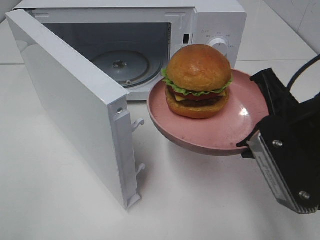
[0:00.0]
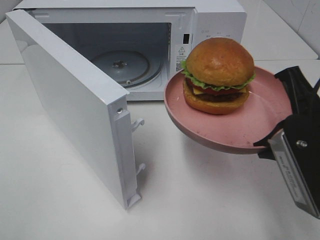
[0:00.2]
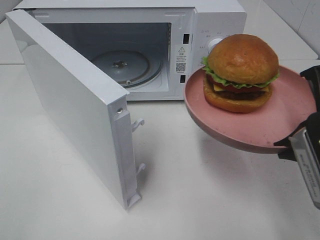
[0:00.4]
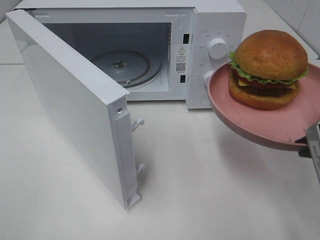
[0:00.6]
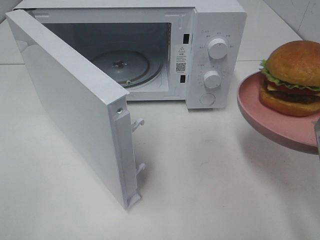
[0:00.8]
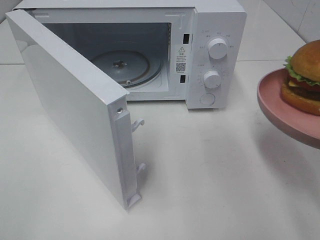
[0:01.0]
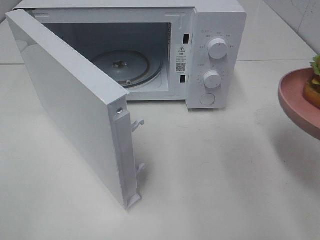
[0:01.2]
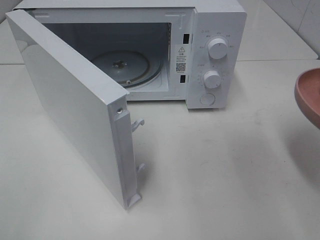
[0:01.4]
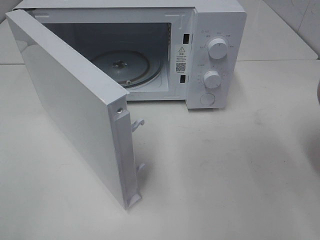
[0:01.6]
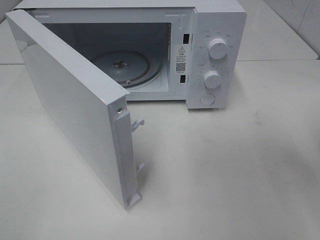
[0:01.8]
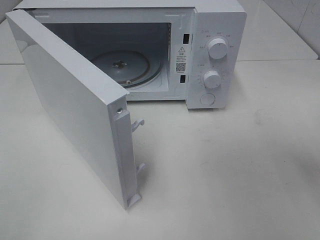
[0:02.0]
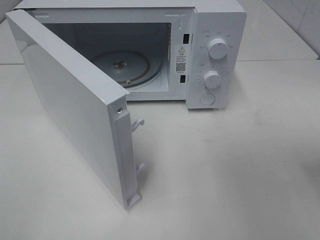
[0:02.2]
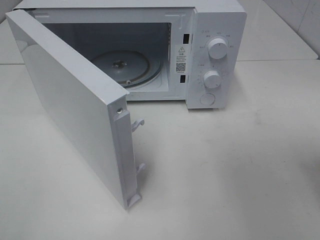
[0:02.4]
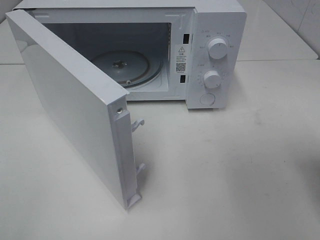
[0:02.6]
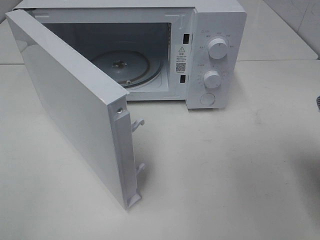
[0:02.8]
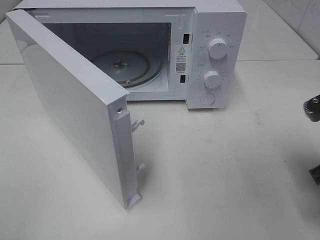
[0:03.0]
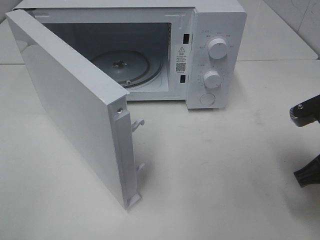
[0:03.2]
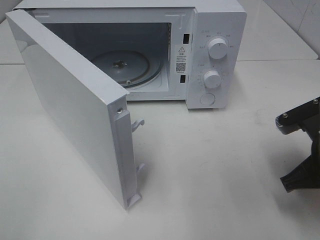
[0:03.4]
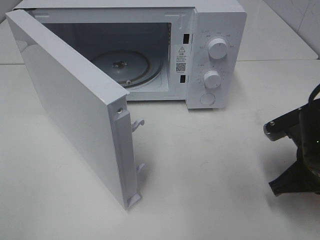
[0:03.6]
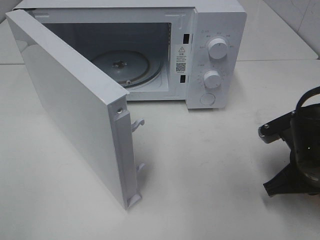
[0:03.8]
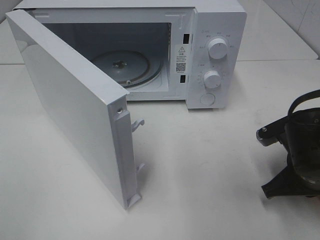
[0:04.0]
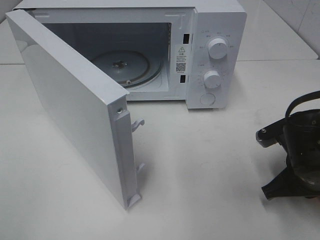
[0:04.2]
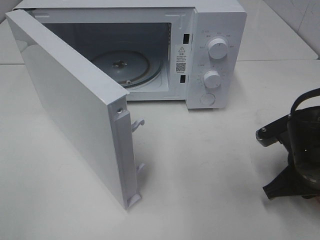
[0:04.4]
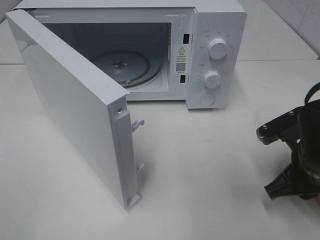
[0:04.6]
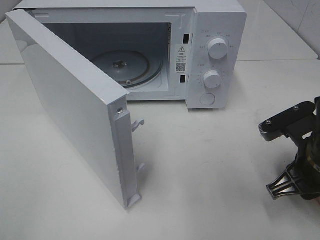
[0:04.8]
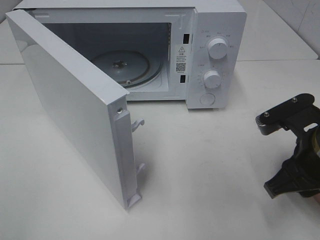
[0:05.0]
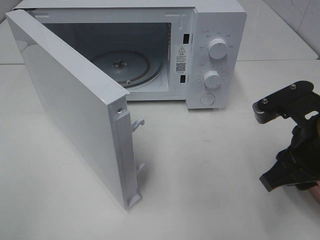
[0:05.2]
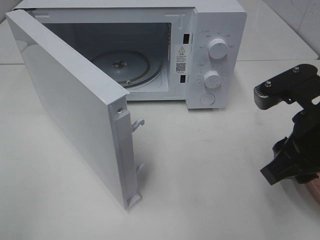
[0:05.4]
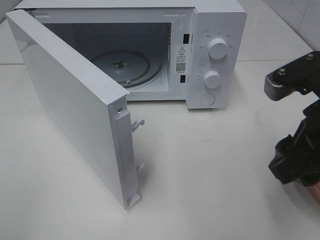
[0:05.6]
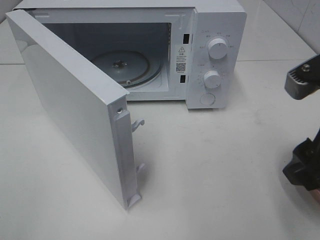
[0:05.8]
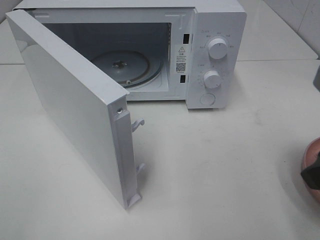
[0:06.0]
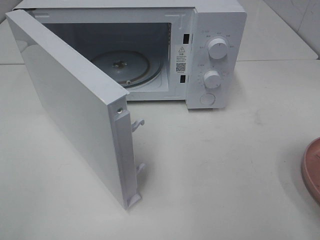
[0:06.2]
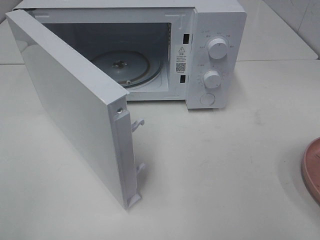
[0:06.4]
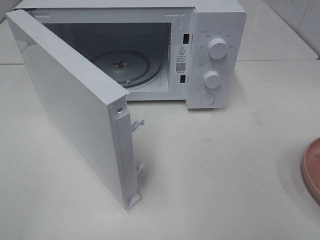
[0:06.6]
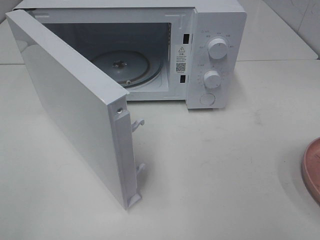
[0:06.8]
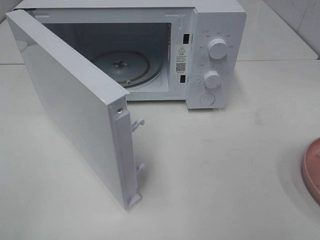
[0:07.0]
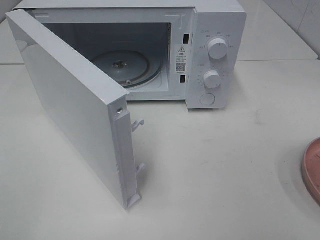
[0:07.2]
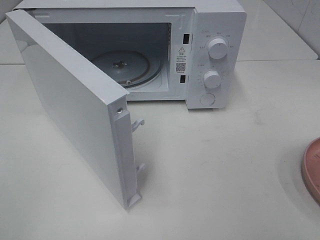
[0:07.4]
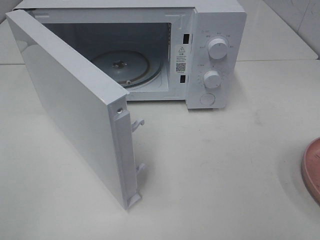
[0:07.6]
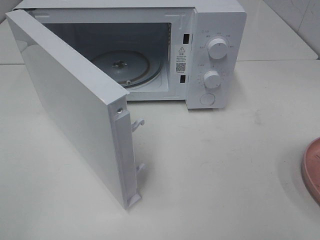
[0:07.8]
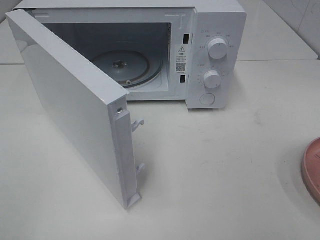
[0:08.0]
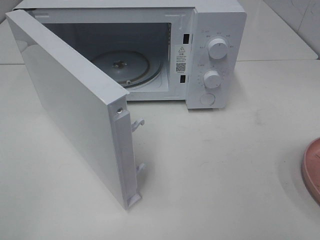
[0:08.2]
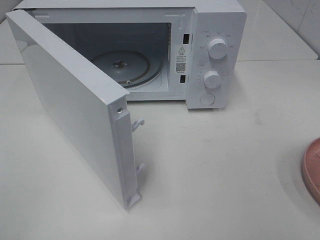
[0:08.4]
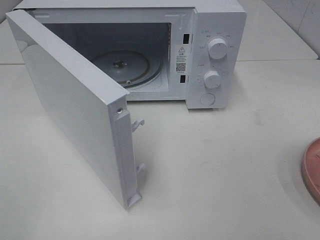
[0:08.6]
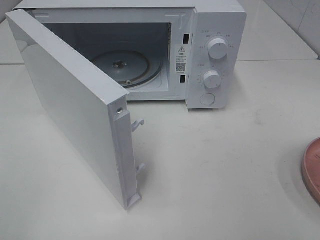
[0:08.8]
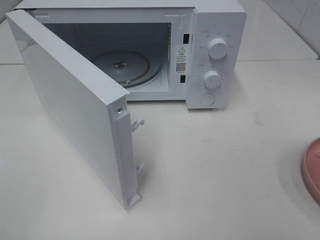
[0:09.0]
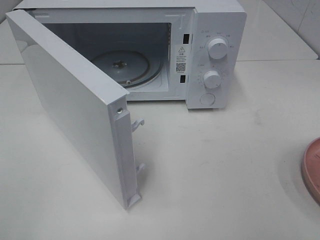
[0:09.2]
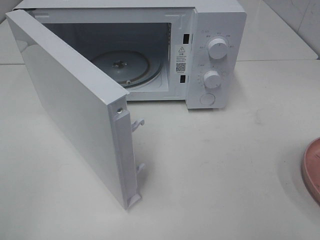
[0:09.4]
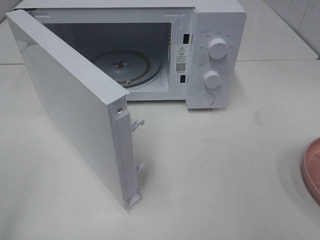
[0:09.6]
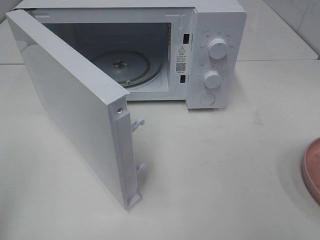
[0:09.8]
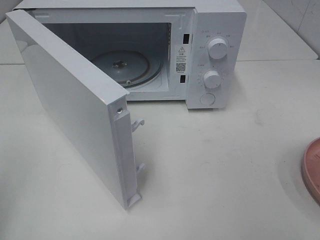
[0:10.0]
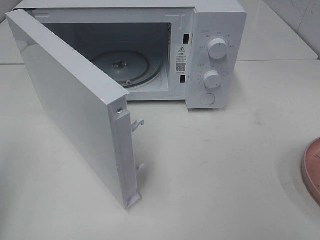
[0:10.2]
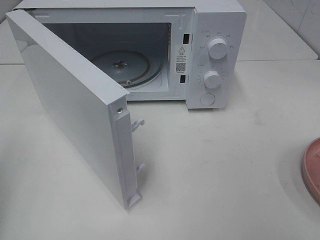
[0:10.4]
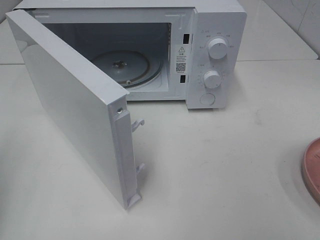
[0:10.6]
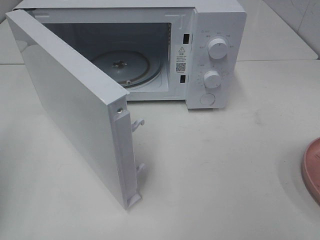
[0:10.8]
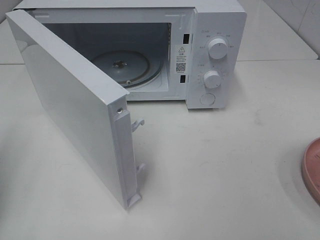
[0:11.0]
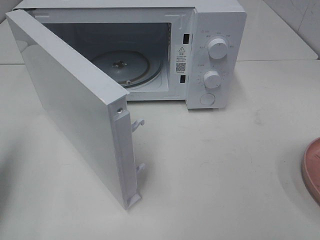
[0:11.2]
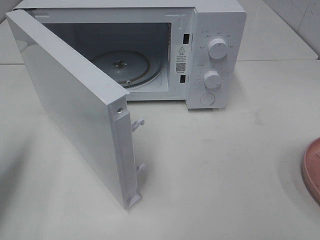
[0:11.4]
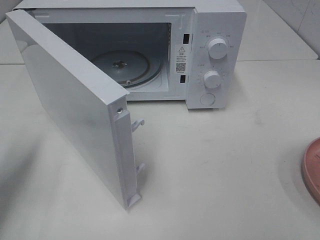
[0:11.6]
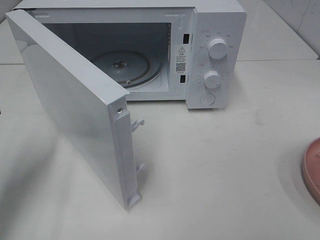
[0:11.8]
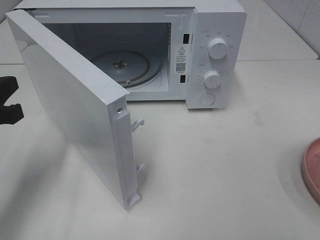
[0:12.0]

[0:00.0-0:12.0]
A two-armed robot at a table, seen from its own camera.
Task of the whole recording: Heat the burger.
Step, 0:00.0 to 0:04.8: Right hand: place the plate on the table.
0:00.0 to 0:01.6: The right gripper goes about 10 cm to the right.
0:01.6 to 0:03.0: The right gripper goes some 5 cm downward.
0:03.0 to 0:04.4: The right gripper moves downward, roughly 10 cm.
0:04.4 to 0:06.0: The right gripper shifts some 20 cm upward and backward, and opens up.
0:06.0 to 0:07.6: The right gripper goes roughly 15 cm backward and to the right.
0:07.6 to 0:09.0: The two grippers keep their place.
0:10.4 to 0:12.0: The left gripper heads forward, downward and to the right, covering about 15 cm.

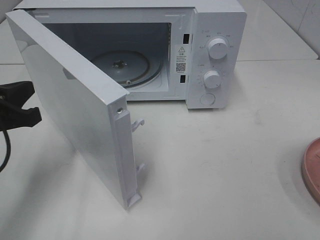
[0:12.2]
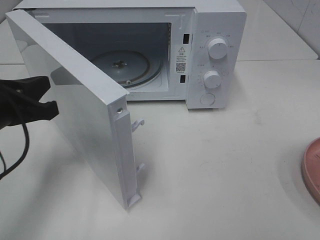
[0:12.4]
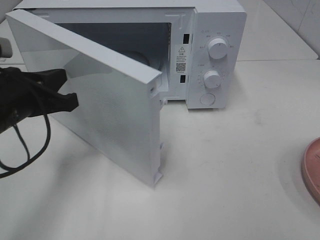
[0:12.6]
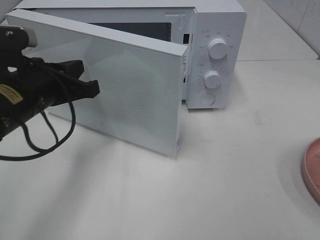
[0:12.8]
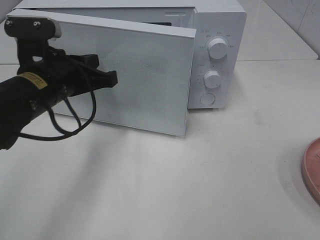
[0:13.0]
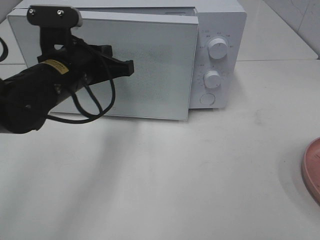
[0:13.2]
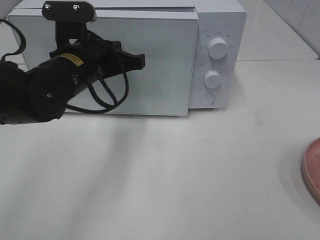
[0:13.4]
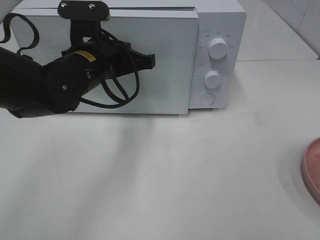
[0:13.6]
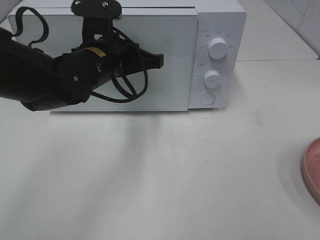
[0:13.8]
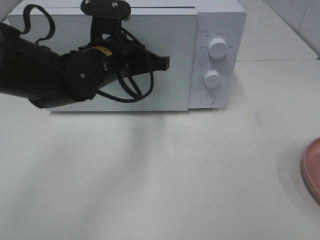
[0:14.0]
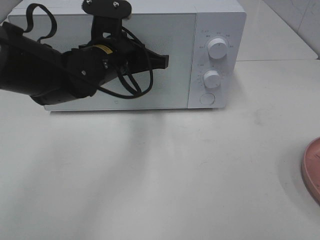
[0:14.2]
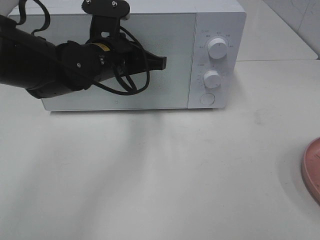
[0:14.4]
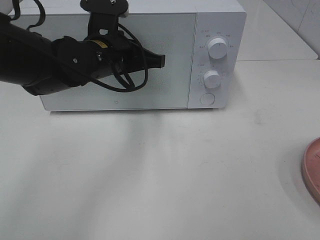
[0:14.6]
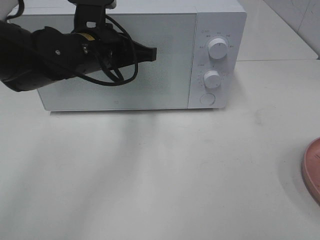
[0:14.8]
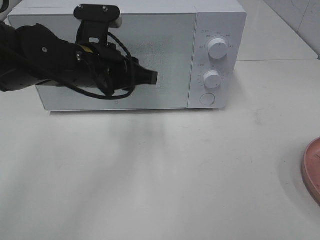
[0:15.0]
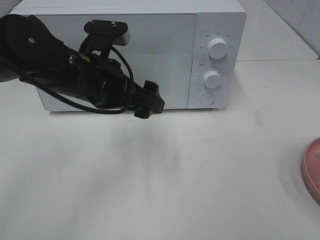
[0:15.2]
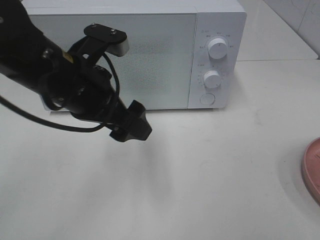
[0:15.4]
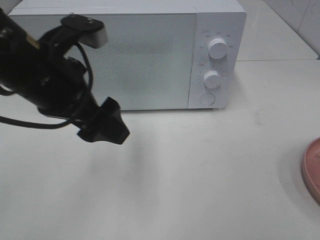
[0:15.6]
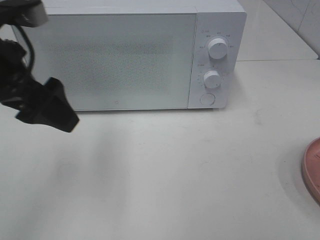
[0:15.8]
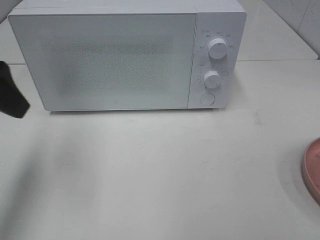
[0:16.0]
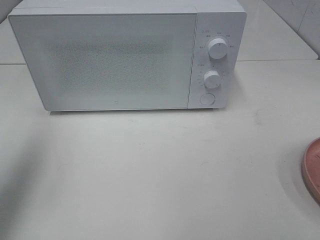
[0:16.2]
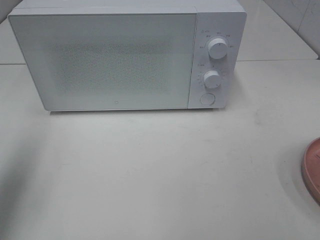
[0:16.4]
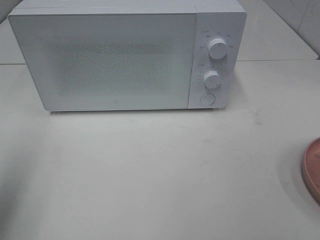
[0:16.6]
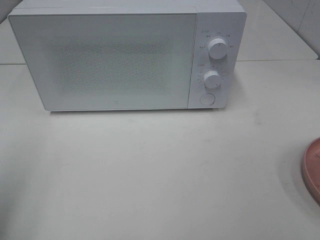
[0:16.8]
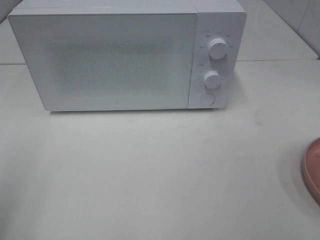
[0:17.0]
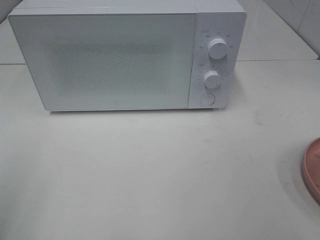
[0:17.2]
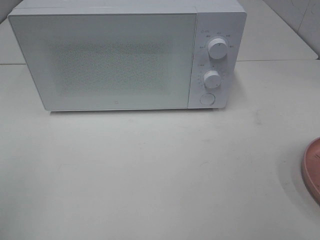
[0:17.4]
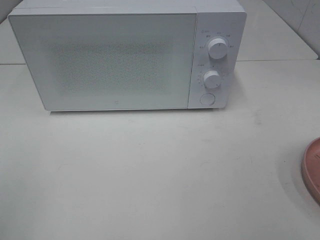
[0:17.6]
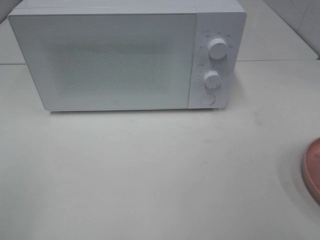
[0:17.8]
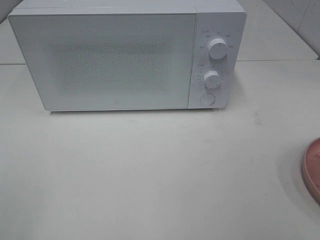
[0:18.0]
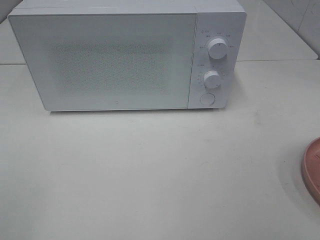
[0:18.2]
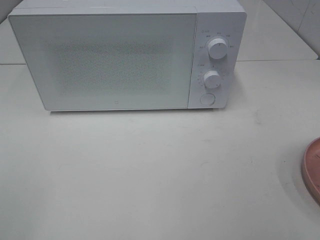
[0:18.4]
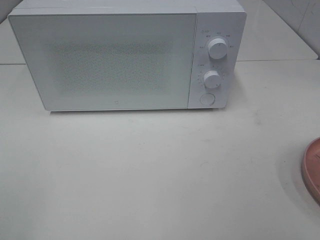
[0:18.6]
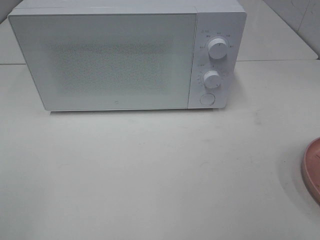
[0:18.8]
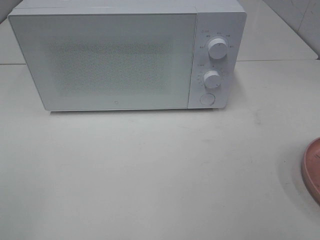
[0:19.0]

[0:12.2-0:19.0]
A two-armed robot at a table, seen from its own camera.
Task of the whole recording: Heat the burger.
Step, 0:12.2 to 0:15.2: Left hand: close the microwave door.
0:12.2 to 0:13.6: The left gripper is displaced to the right and forward by roughly 20 cm.
0:13.6 to 0:15.0: The left gripper opens its fingers.
0:15.0 to 0:16.2: The left gripper is displaced to the left, upward and backward by some 25 cm, and opens up.
0:16.2 to 0:17.6: The left gripper travels backward by about 20 cm.

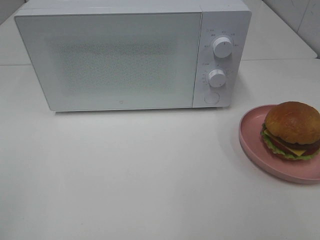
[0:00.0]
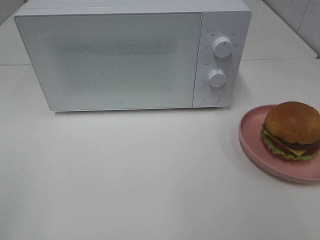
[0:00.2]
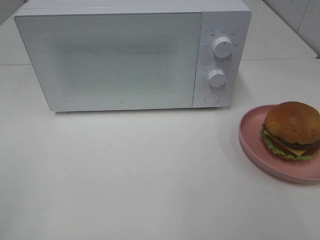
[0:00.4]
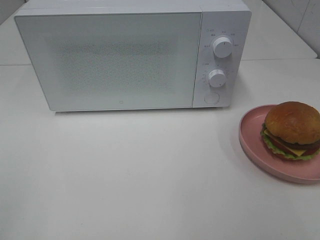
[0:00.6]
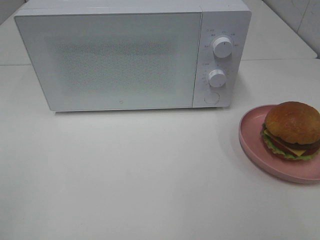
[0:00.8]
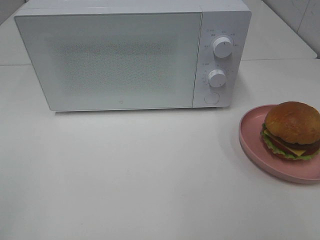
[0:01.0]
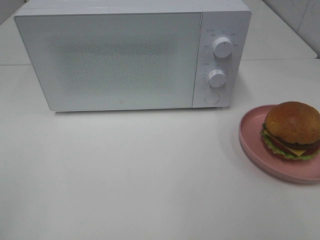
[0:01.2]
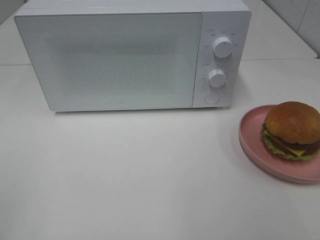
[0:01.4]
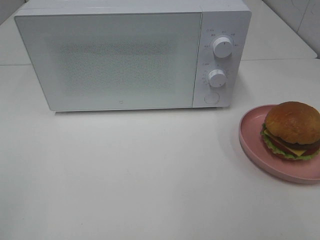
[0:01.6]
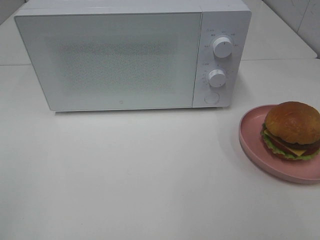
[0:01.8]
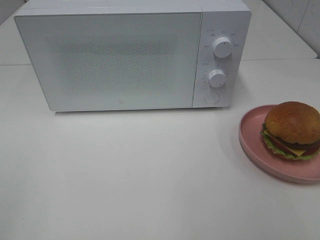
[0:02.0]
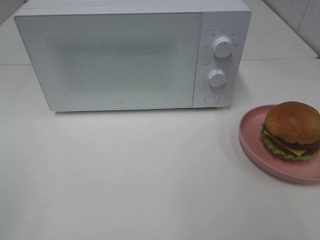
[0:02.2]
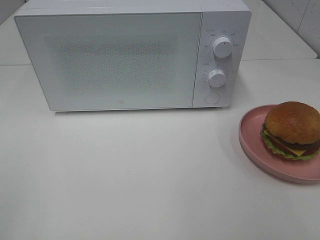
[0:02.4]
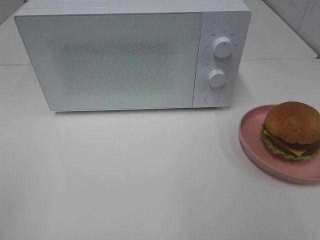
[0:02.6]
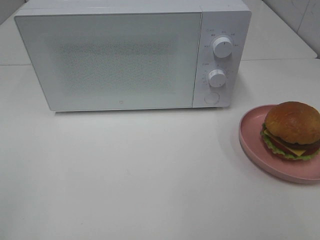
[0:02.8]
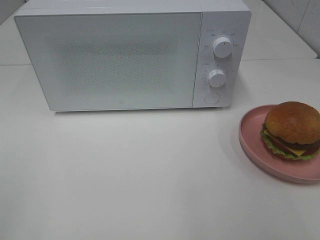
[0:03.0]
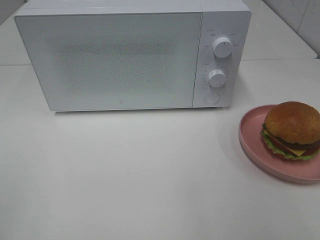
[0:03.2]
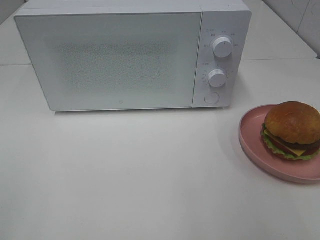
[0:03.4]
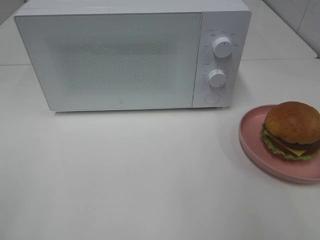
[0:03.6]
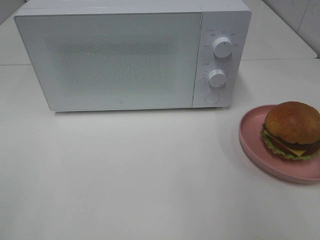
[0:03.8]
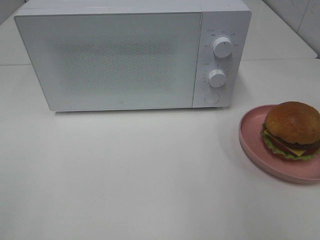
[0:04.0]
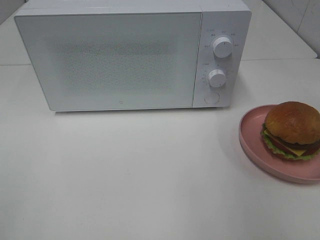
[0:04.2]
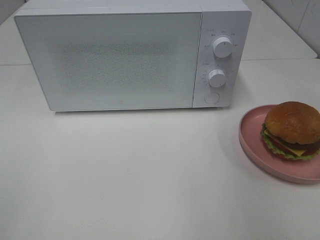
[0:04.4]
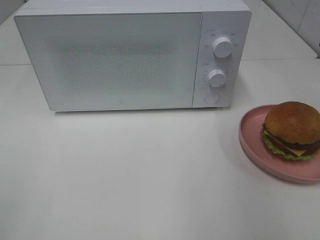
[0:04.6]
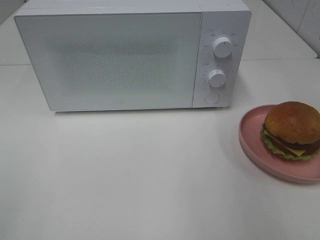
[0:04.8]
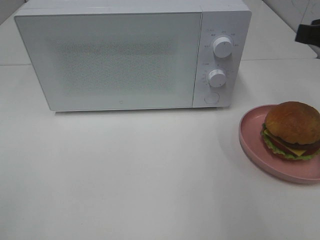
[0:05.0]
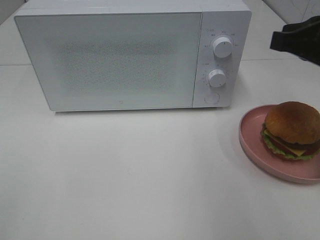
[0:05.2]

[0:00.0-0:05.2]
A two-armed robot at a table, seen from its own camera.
Task of the whole recording: Heat the burger.
0:00.0 to 0:01.8: Neither gripper changes place.
0:03.4 to 0:05.2: The right gripper is displaced forward and to the left by some 15 cm, and closes up.
